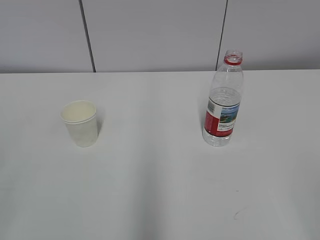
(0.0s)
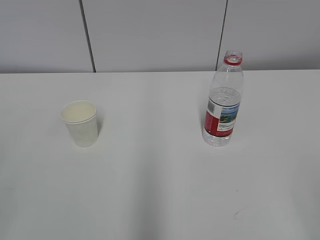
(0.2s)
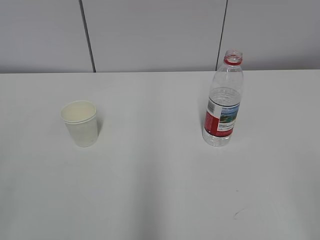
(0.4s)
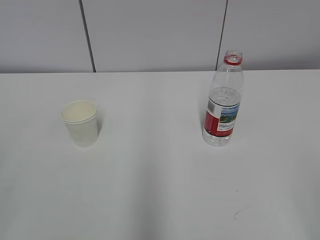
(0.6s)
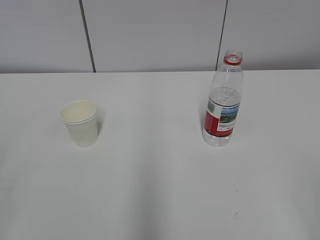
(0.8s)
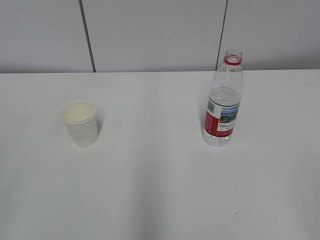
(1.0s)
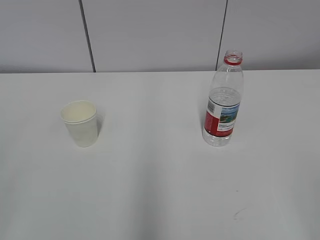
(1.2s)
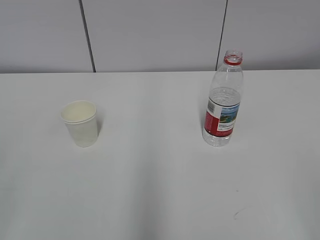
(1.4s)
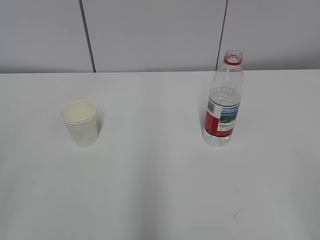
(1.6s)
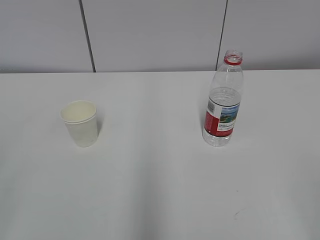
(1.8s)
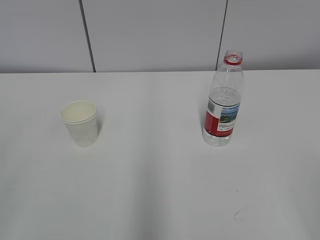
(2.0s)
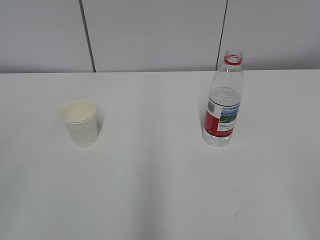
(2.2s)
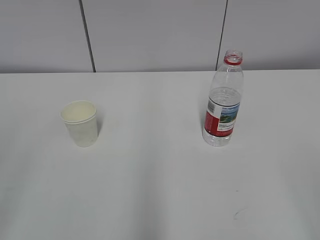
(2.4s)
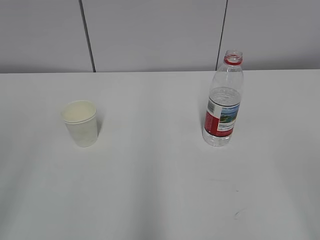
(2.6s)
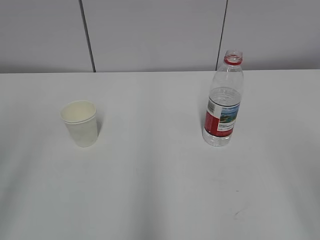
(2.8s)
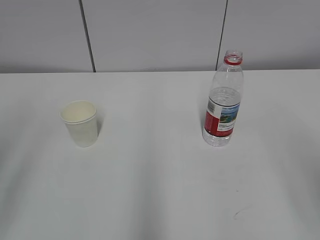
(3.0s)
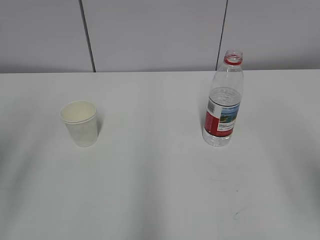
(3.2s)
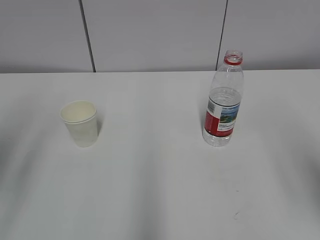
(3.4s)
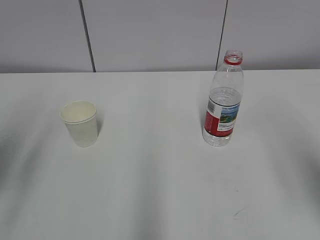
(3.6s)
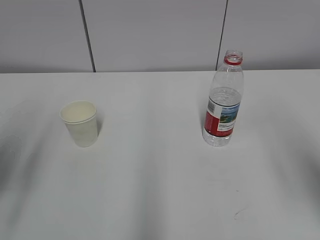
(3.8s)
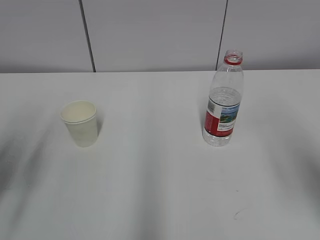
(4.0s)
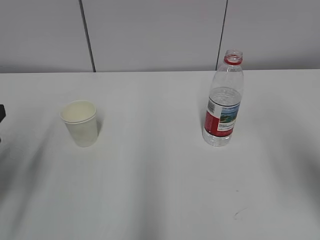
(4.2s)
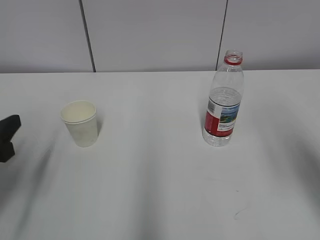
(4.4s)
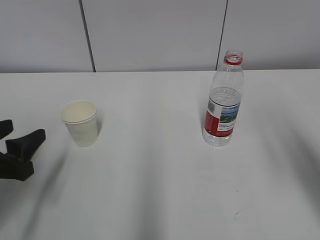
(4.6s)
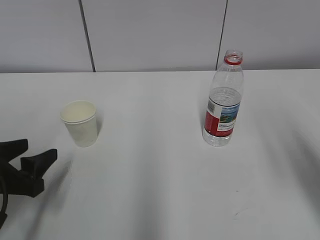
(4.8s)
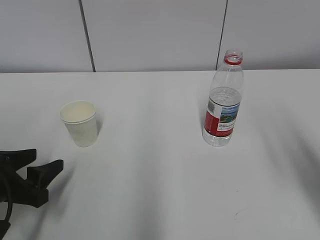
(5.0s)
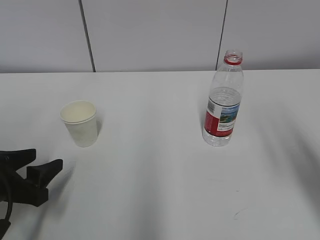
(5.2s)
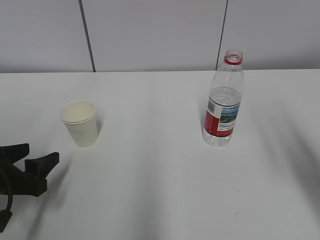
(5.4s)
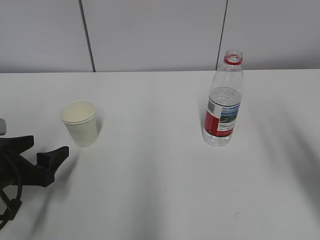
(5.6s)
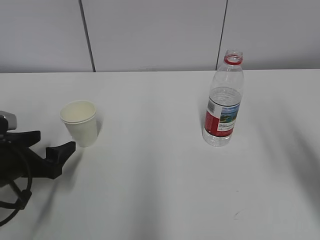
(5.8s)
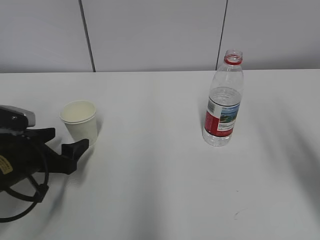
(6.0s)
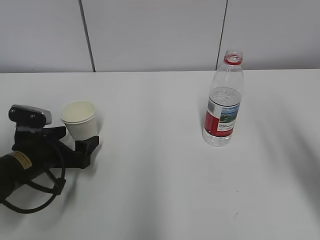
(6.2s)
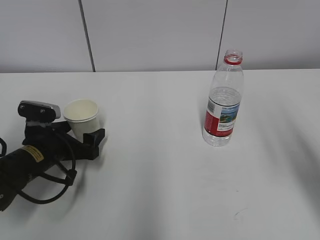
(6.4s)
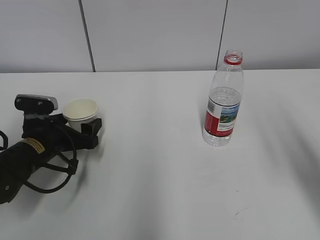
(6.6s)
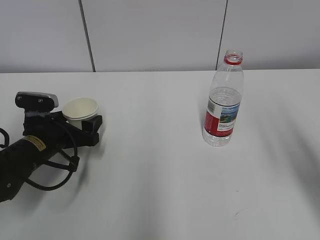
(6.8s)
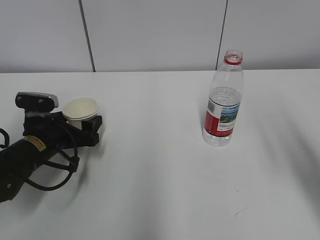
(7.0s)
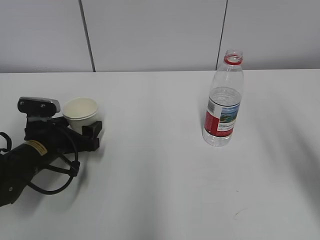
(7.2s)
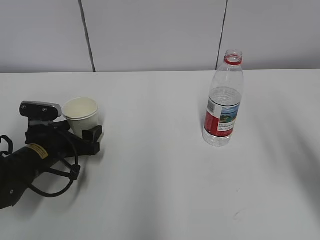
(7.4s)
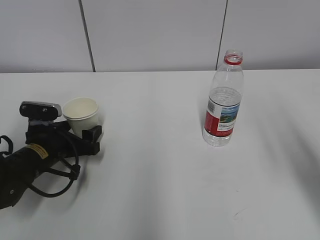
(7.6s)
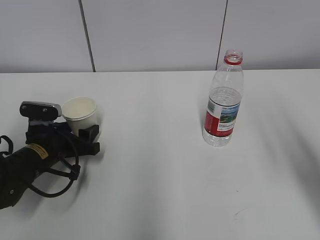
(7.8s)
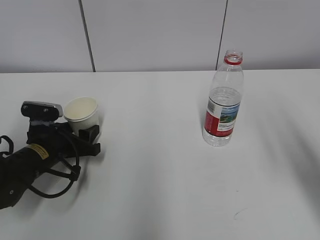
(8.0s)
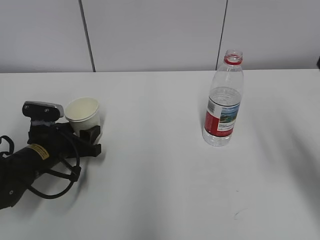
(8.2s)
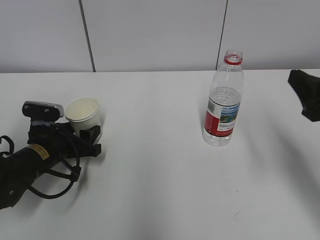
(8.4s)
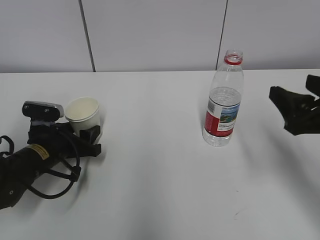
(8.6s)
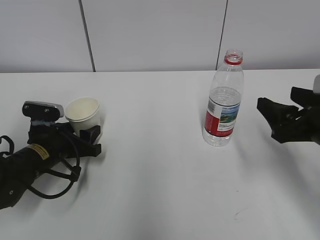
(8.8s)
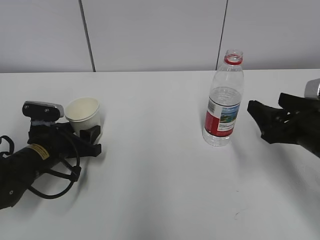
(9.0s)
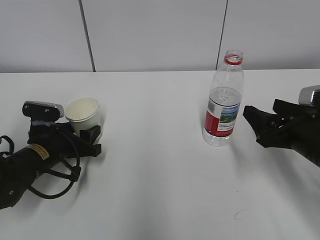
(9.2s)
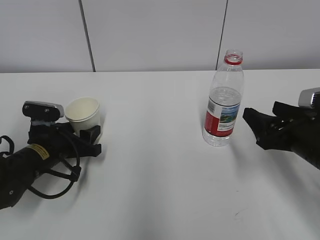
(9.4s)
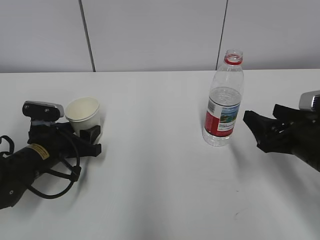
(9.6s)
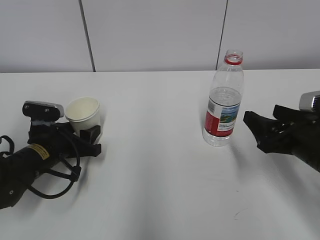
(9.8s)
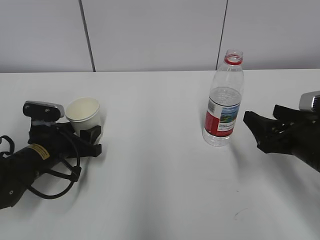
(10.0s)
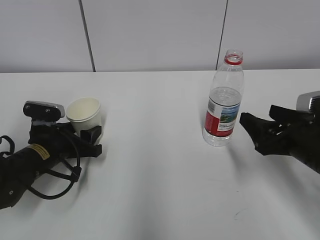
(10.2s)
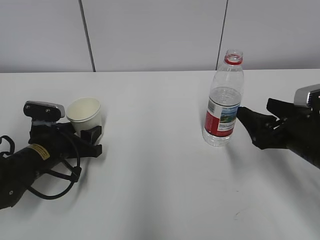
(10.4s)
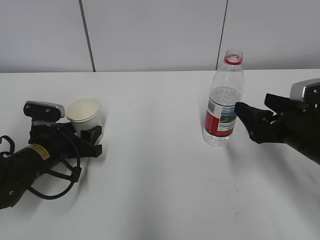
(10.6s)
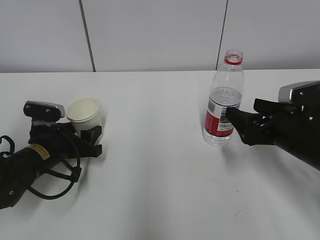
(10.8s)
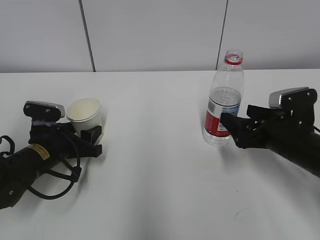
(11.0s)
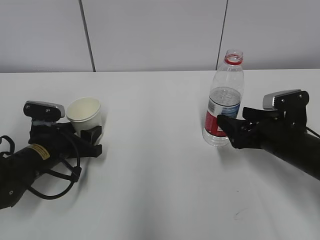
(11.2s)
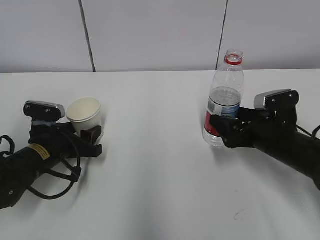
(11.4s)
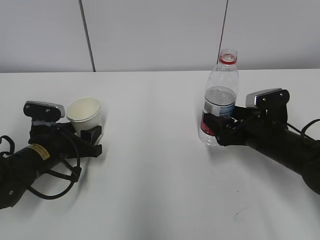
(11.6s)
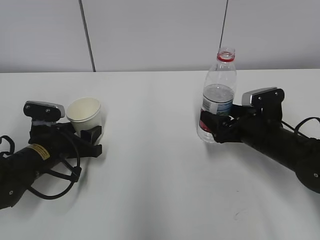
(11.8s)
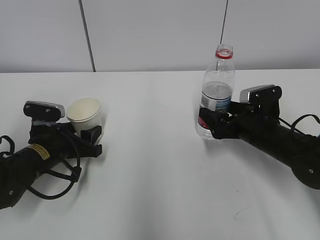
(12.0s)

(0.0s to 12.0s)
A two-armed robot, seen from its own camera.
Step, 0.0s - 6.4s: Grab the paper cup with the left hand.
Step, 6.6s - 11.6s: Grab the water bottle with the right hand.
3.0s - 4.4s: The left gripper moves downward and forward, roughly 20 cm, while the right gripper goes some 10 cm forward.
4.4s - 6.0s: The left gripper heads downward and forward, covering approximately 10 cm, and opens up.
6.0s - 7.6s: The left gripper changes place by some 5 cm.
7.6s - 9.0s: The right gripper shifts about 15 cm downward and forward; the left gripper closes its fingers.
9.0s - 10.4s: The grippers move only a little.
10.4s - 12.0s: The right gripper travels forward and downward by approximately 10 cm.

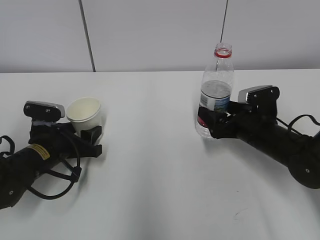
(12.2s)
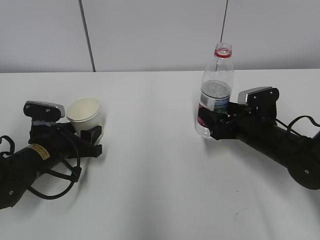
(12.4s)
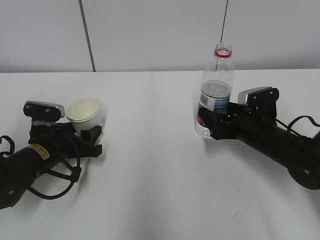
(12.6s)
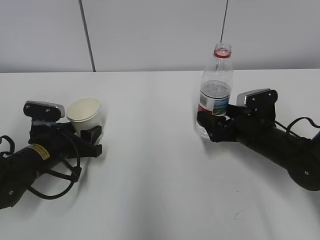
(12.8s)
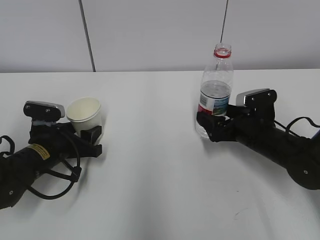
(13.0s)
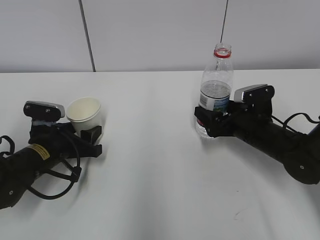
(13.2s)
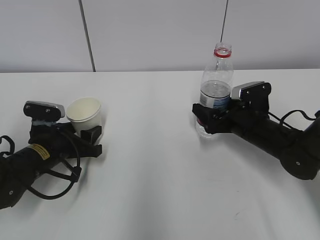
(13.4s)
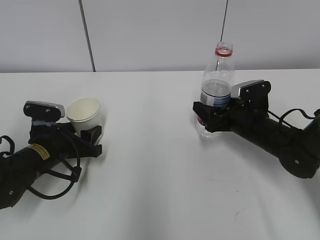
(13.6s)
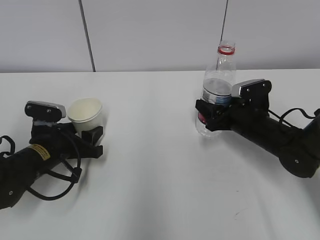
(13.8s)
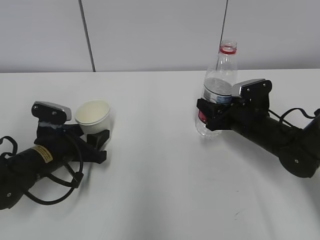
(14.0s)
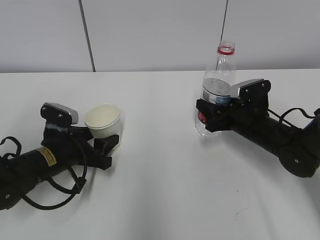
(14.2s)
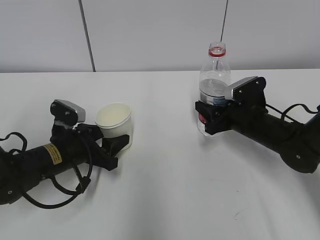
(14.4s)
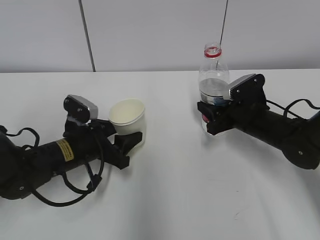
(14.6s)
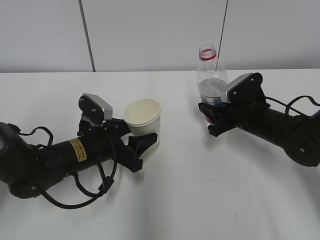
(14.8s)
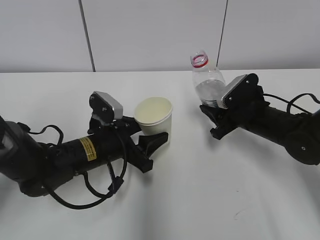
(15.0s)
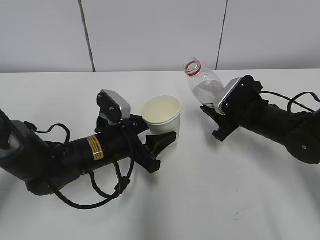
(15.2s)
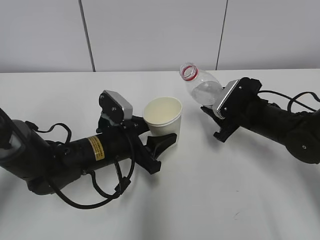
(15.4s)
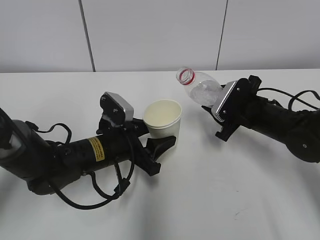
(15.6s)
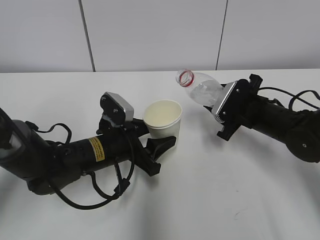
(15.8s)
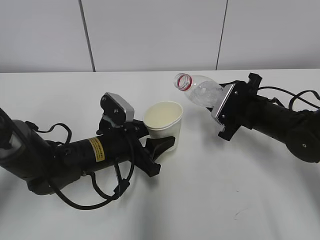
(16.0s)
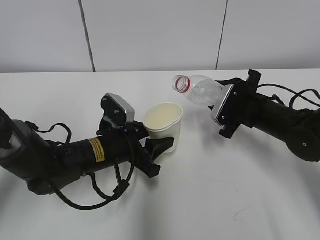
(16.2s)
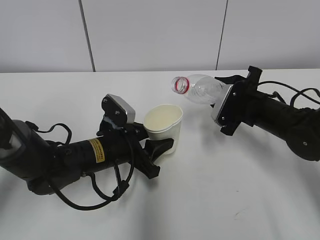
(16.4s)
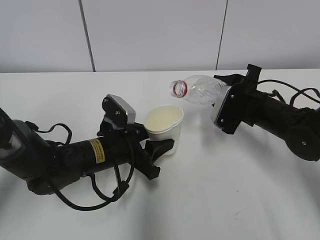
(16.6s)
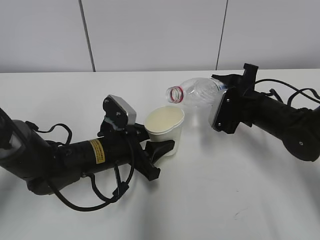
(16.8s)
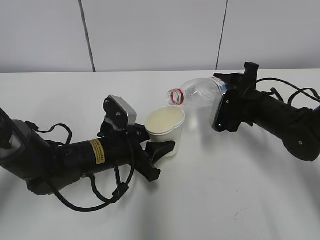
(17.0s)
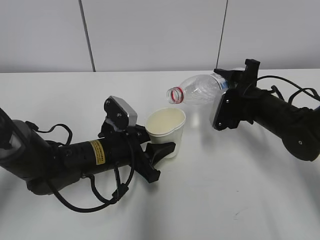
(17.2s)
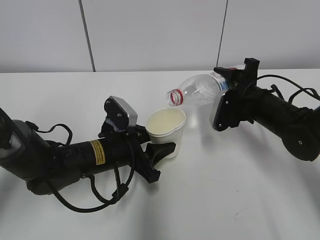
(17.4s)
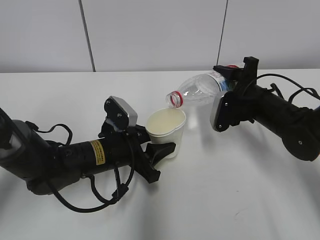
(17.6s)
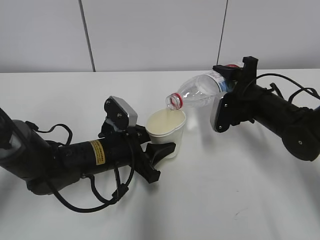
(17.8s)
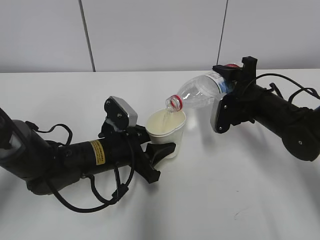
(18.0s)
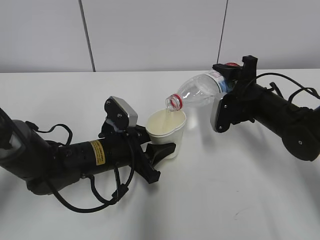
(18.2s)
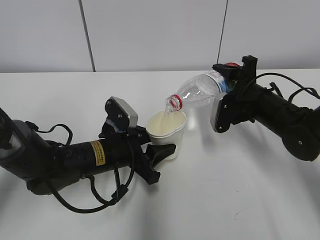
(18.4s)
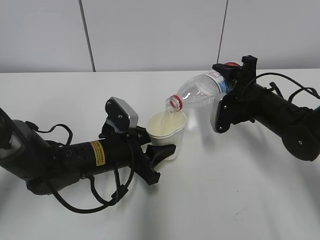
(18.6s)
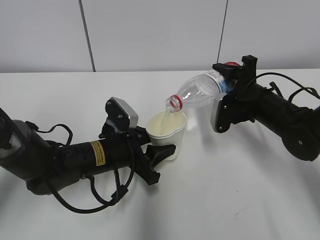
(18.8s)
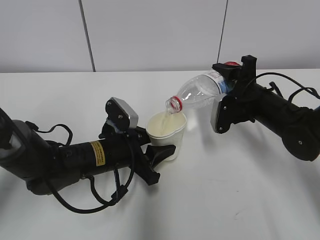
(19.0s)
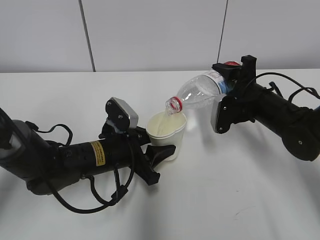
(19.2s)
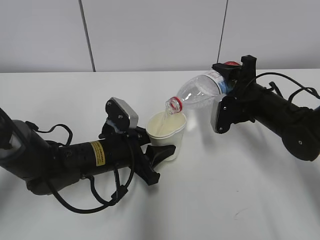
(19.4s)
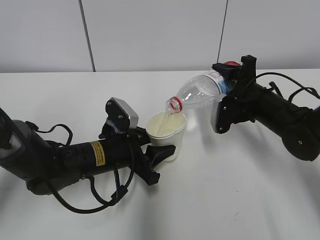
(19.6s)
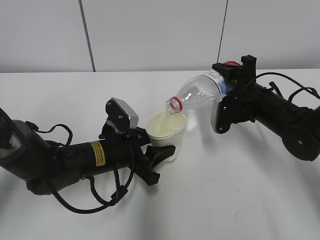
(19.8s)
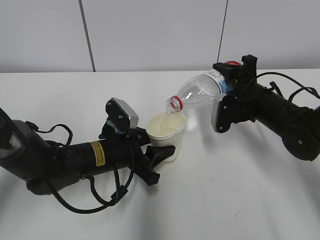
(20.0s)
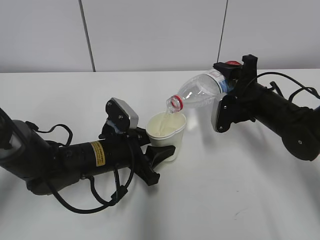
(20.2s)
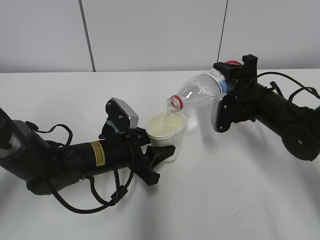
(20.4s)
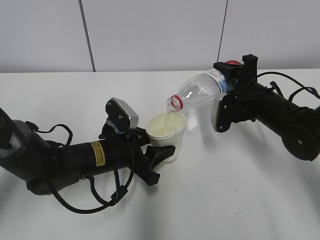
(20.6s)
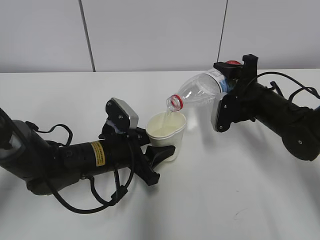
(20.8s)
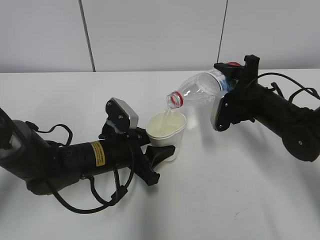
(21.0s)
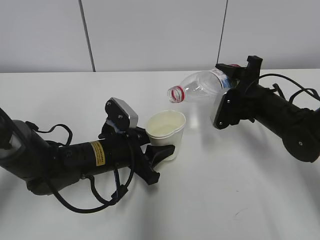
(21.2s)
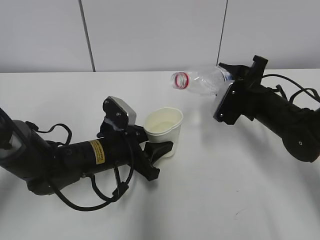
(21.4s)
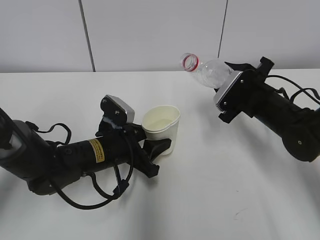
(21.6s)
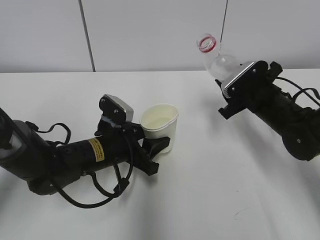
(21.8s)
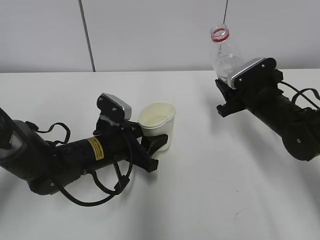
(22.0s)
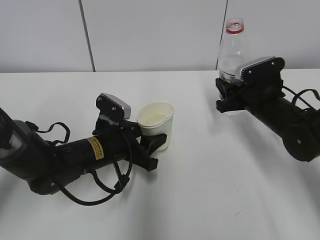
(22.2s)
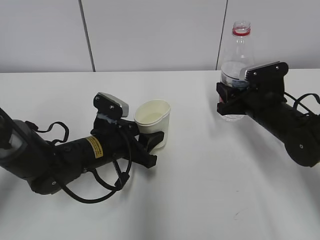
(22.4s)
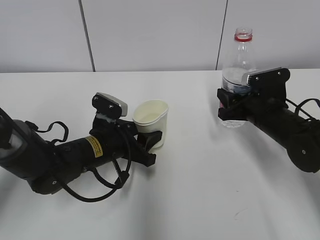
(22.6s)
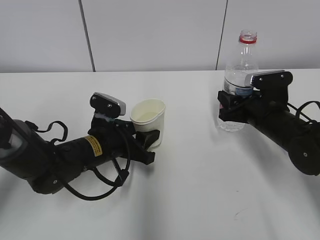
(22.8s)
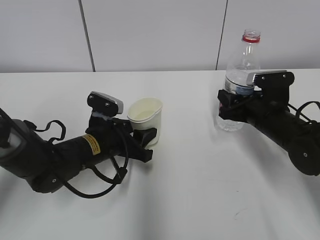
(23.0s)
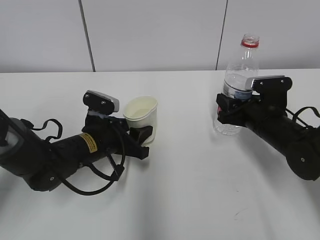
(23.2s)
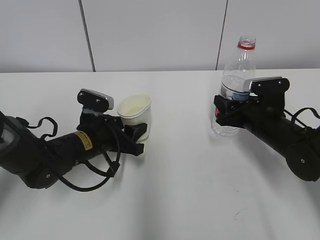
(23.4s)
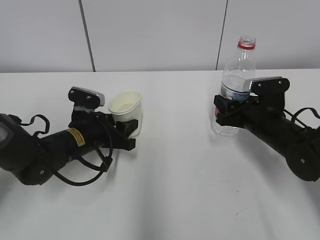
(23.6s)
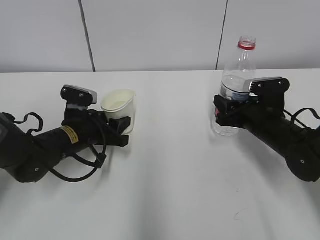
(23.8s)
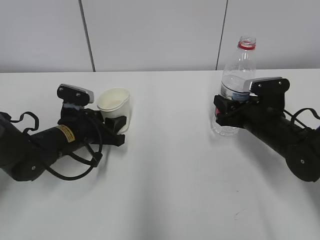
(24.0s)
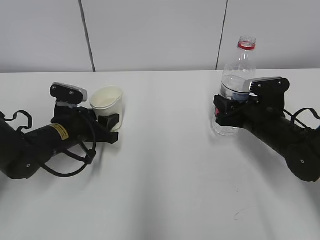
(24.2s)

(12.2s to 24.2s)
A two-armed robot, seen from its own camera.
Step, 12.2s - 14.6s: Lift the paper cup with the left hand.
Step, 14.8s - 17.6s: Fill water with the left hand.
Step, 14.8s - 17.6s: Pour water with the right hand.
Step, 18.6s - 21.2s: Place the paper cup with the left hand.
Step, 21.4s - 23.4s: Place the water bottle with the right hand.
12.2s - 13.8s: The right gripper closes.
13.8s - 15.2s: The left gripper heads to the right, covering approximately 10 cm.
18.2s - 19.8s: The two grippers keep their place.
19.8s - 21.2s: The grippers move only a little.
22.6s - 24.2s: The left gripper shifts approximately 10 cm to the left.
